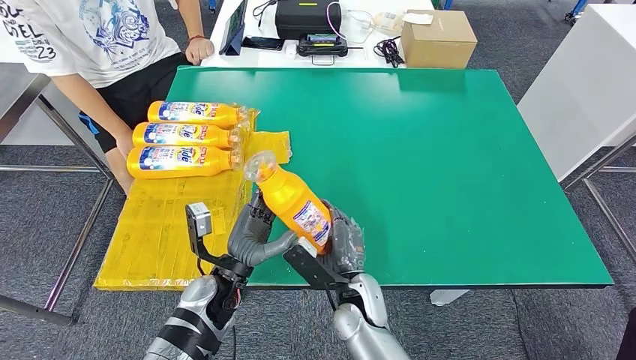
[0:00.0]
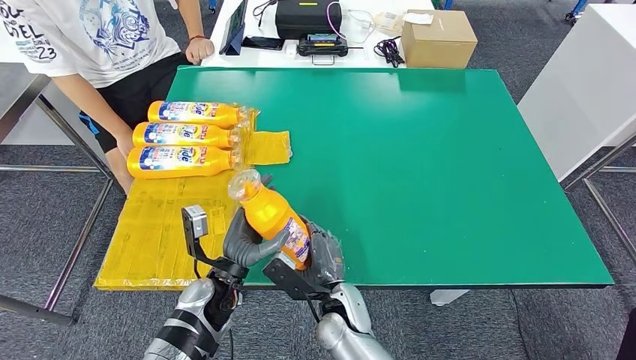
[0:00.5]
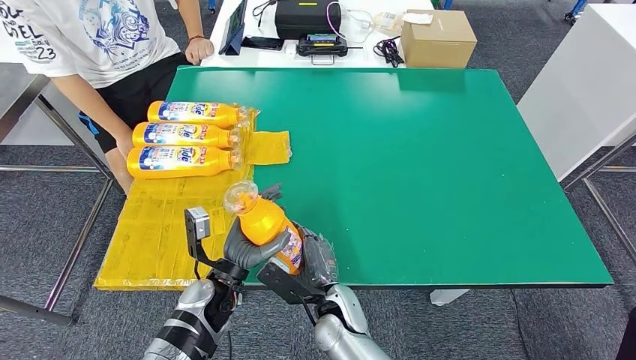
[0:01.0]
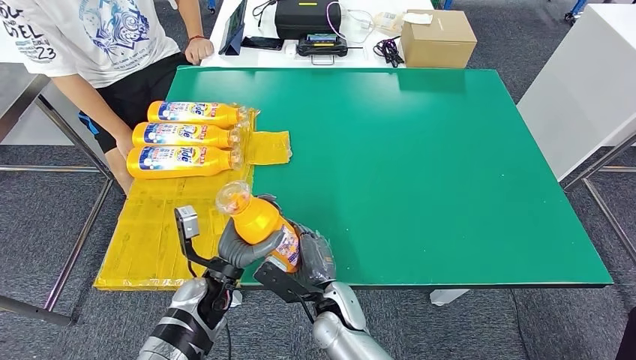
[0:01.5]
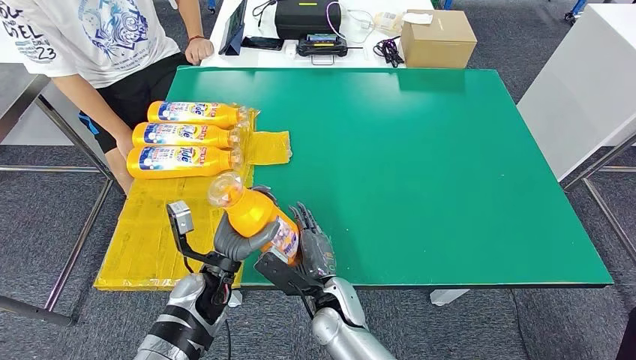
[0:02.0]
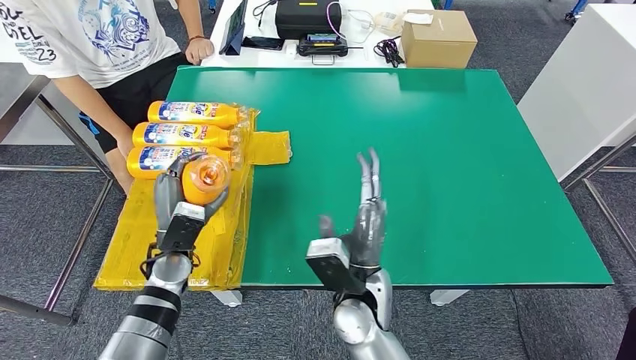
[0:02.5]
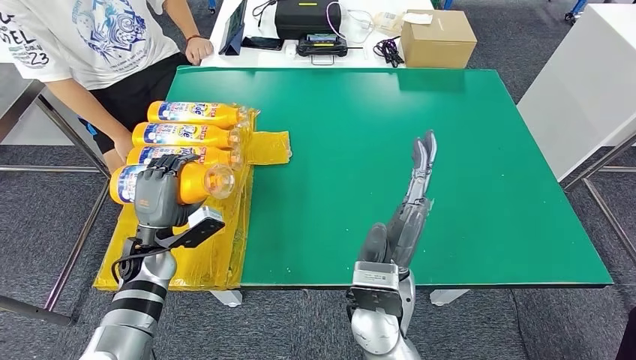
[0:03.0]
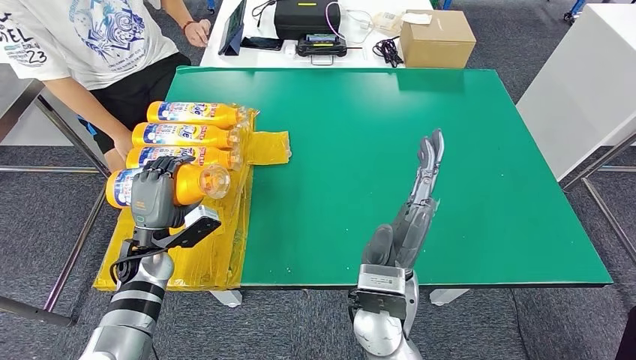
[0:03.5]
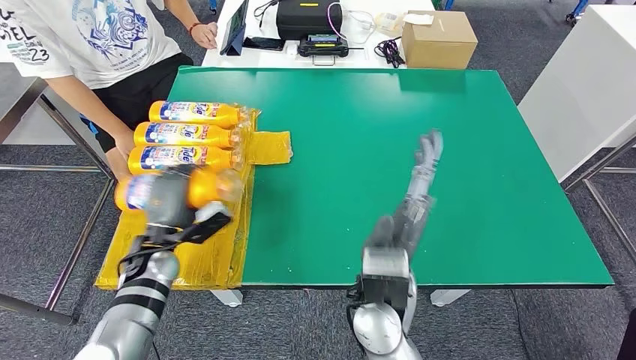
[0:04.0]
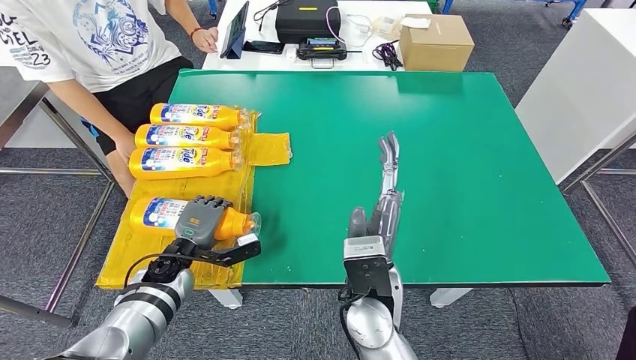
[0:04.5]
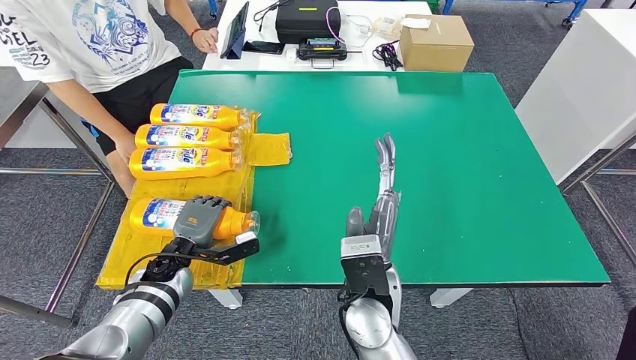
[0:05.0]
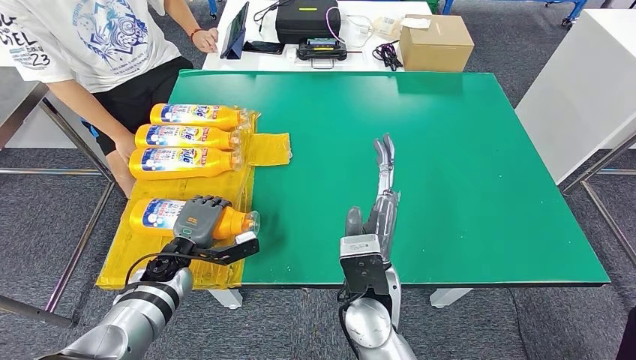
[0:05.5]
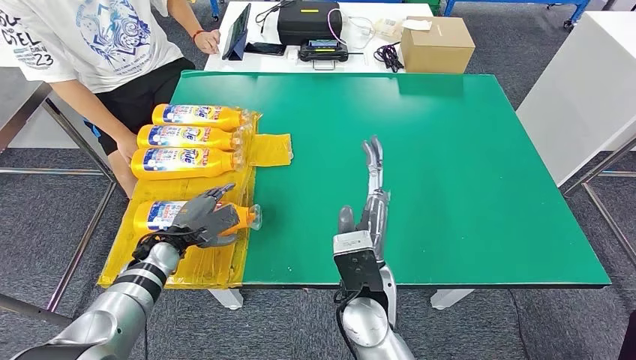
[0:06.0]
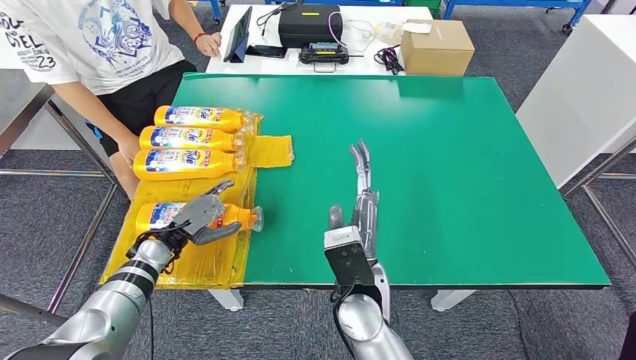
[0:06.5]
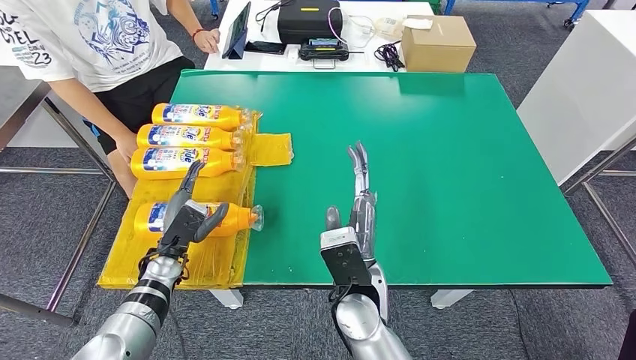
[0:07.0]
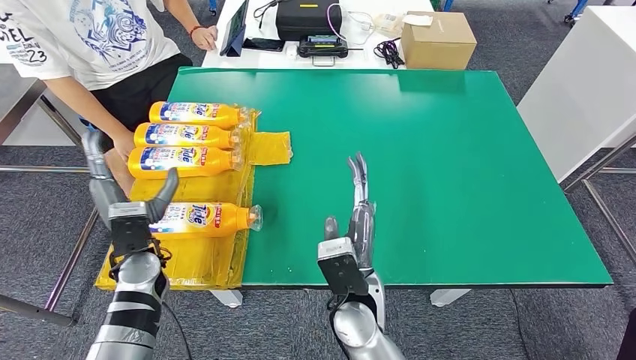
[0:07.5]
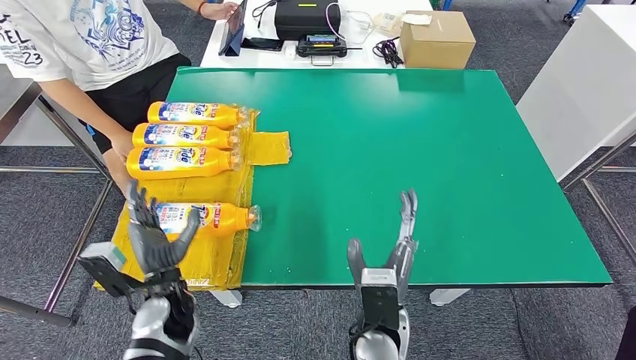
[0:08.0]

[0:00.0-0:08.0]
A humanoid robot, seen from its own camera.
Step, 0:00.0 to 0:08.0: Flip the fast-moving consumer goods bottle to the front side.
0:00.0 to 0:02.0: The hands make only small movements.
